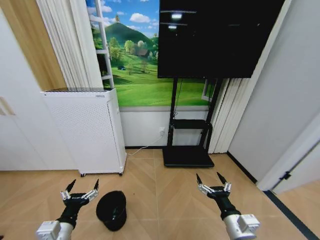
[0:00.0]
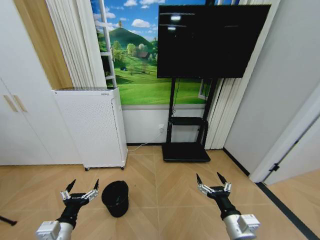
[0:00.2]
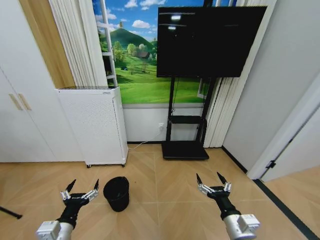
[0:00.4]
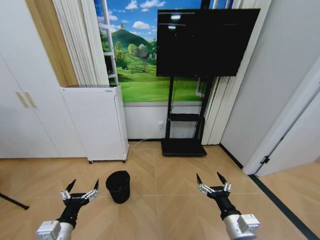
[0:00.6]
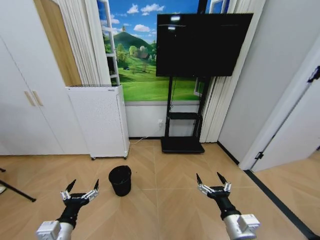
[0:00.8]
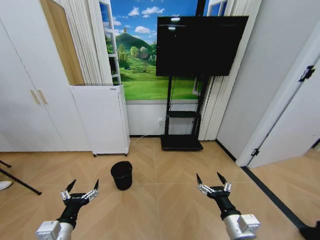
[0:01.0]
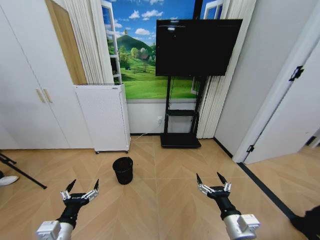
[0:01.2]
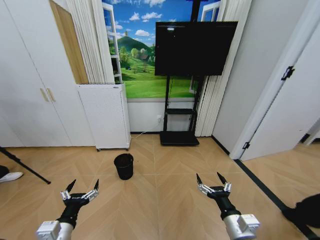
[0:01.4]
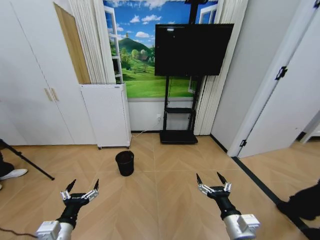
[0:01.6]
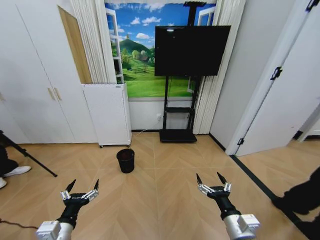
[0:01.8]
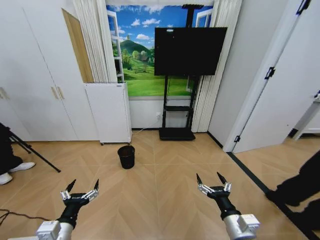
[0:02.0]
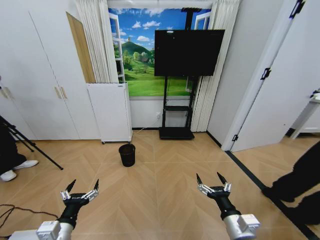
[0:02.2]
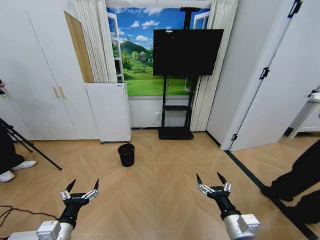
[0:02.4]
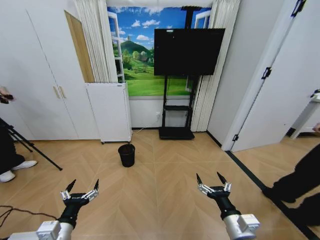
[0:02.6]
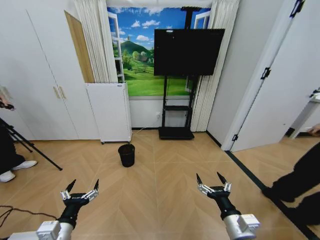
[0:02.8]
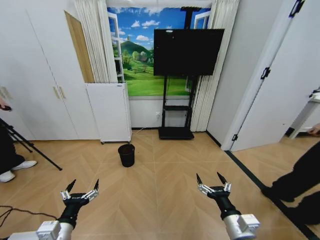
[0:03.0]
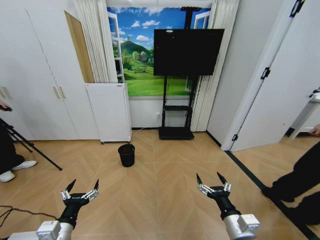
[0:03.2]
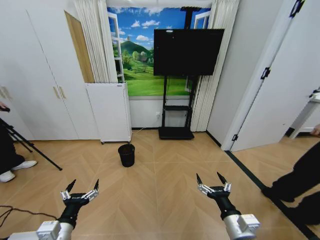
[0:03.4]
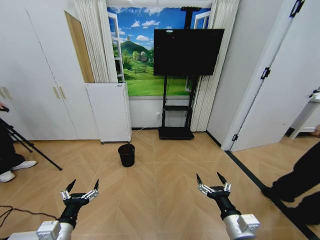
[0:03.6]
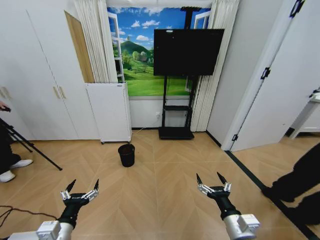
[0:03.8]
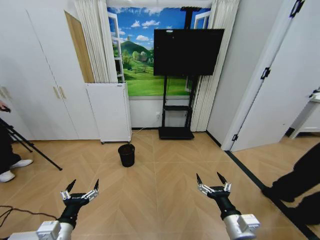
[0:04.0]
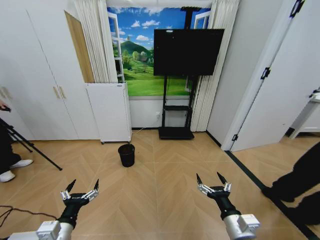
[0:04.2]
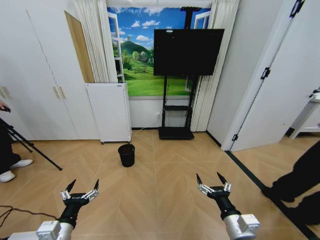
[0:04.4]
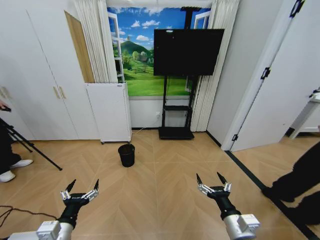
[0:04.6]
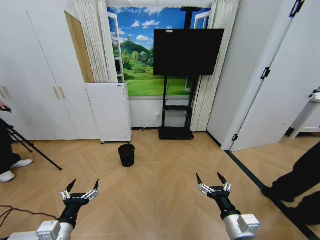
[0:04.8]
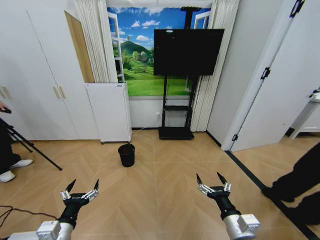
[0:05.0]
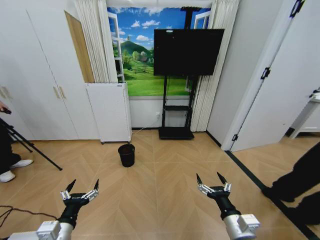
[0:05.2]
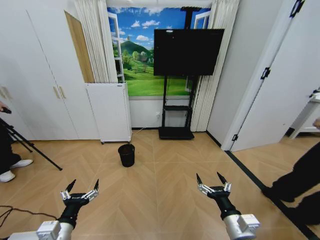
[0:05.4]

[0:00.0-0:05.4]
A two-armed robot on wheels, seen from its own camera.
Task of the whole recording: Pick up the trash bin and place the garbage on the floor into it.
0:02.8 to 0:05.4: Both grippers stay put.
